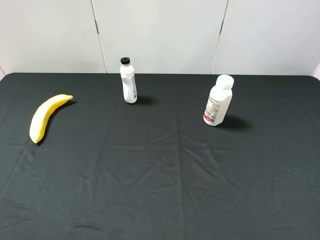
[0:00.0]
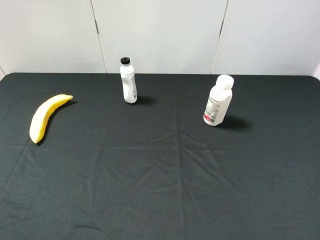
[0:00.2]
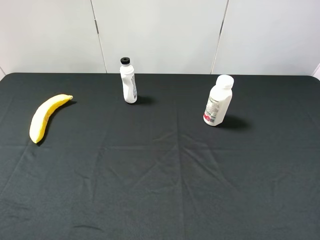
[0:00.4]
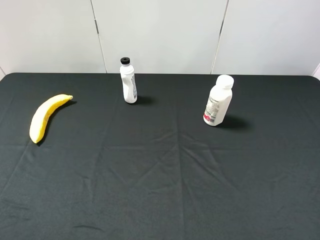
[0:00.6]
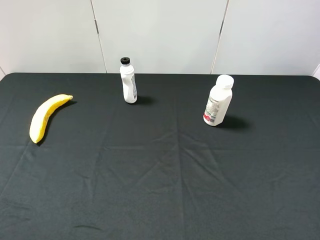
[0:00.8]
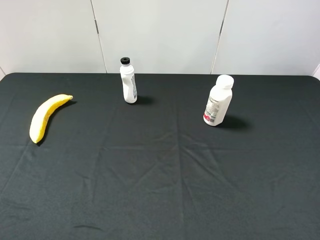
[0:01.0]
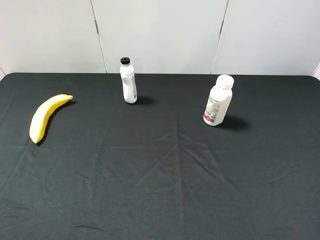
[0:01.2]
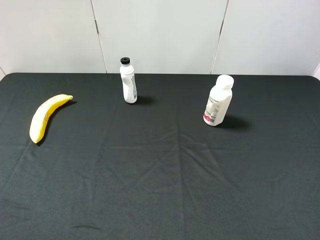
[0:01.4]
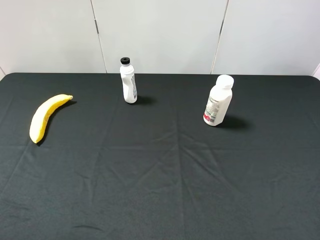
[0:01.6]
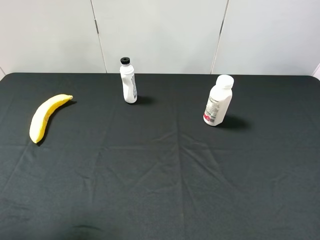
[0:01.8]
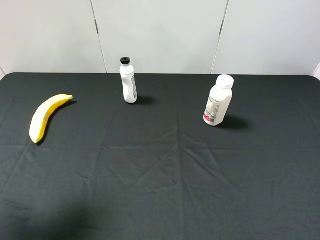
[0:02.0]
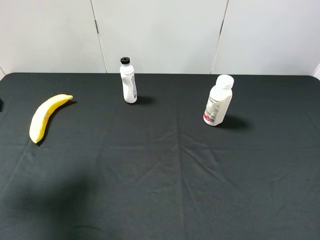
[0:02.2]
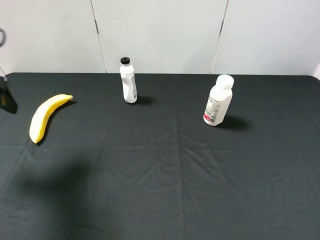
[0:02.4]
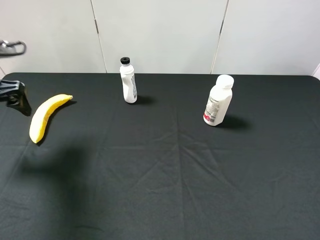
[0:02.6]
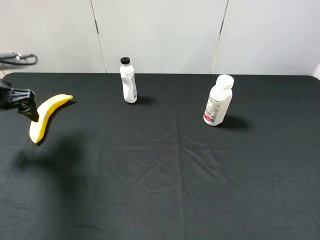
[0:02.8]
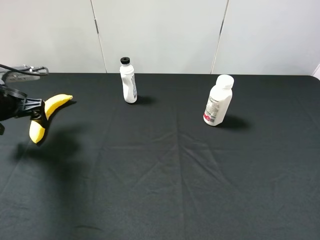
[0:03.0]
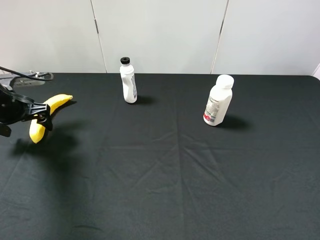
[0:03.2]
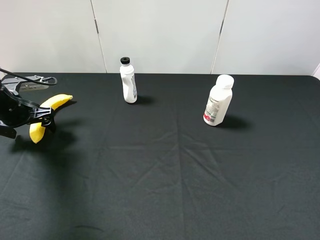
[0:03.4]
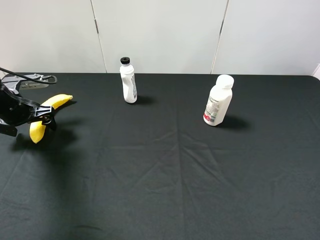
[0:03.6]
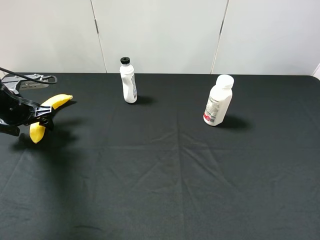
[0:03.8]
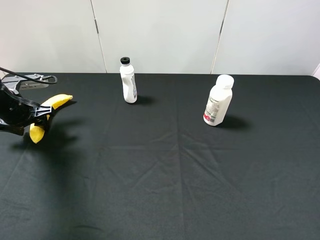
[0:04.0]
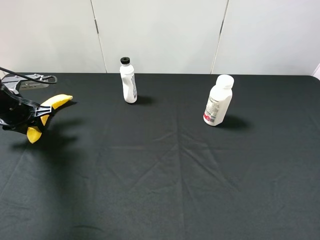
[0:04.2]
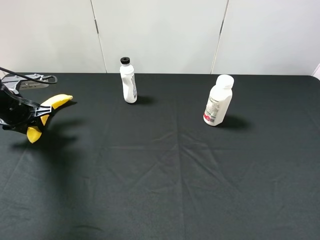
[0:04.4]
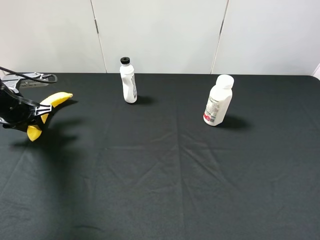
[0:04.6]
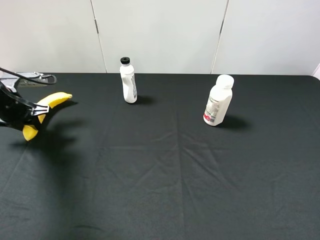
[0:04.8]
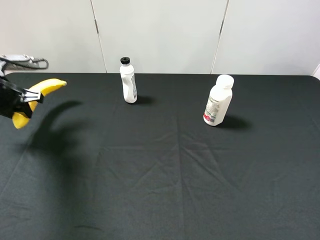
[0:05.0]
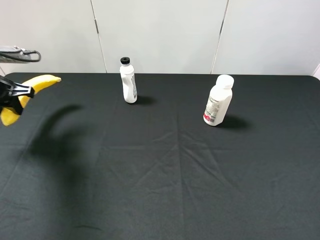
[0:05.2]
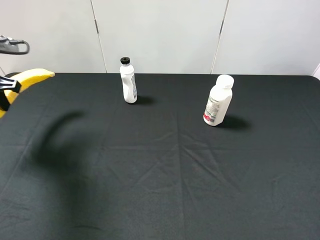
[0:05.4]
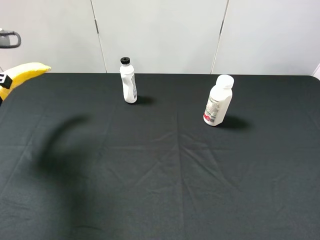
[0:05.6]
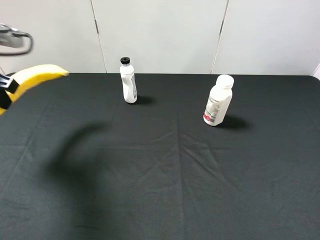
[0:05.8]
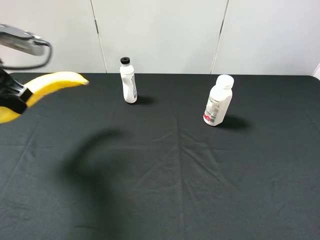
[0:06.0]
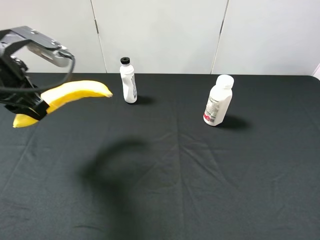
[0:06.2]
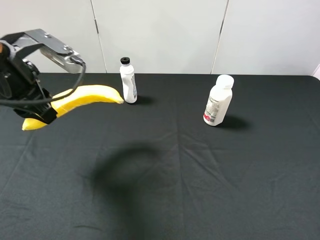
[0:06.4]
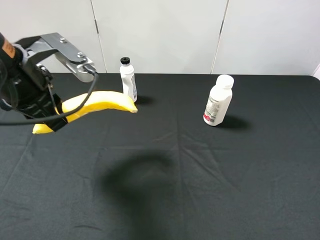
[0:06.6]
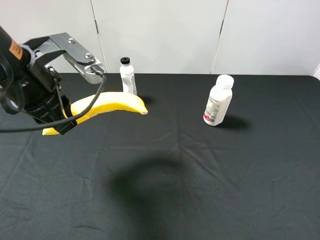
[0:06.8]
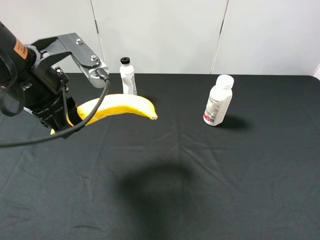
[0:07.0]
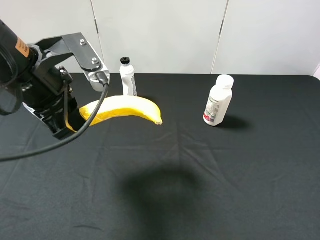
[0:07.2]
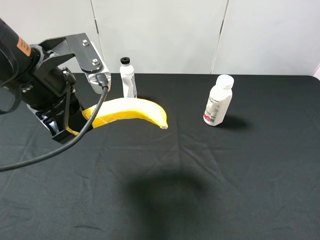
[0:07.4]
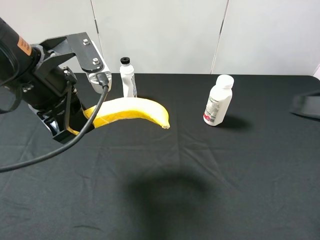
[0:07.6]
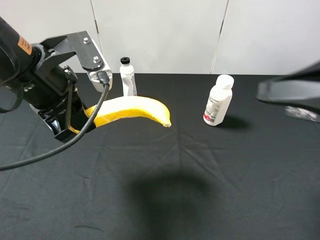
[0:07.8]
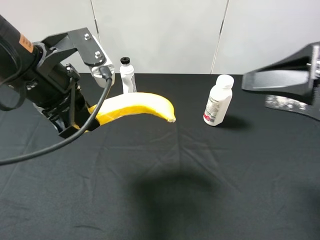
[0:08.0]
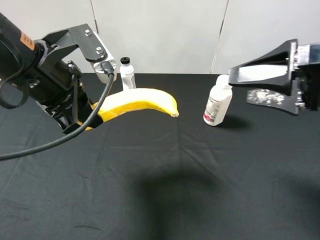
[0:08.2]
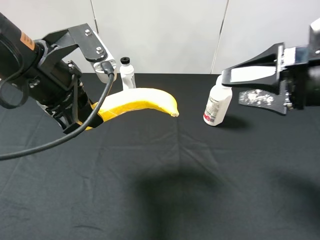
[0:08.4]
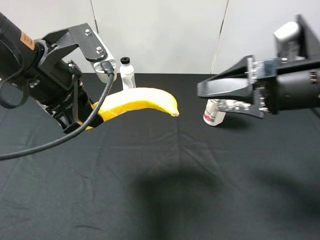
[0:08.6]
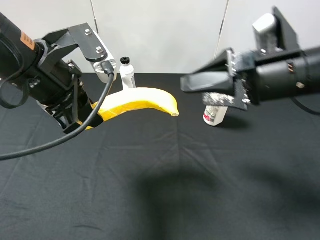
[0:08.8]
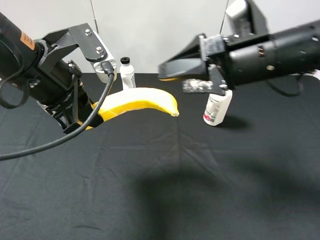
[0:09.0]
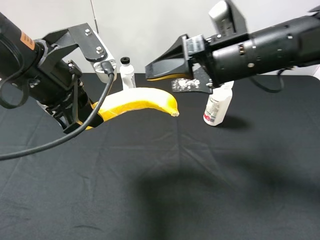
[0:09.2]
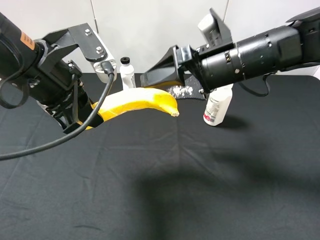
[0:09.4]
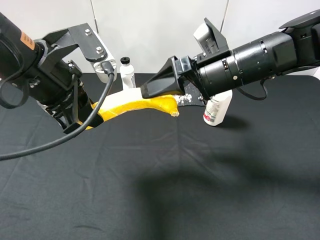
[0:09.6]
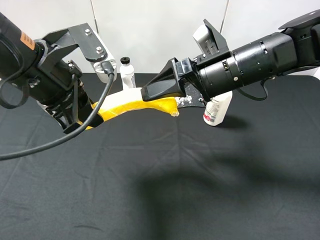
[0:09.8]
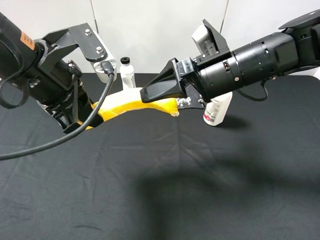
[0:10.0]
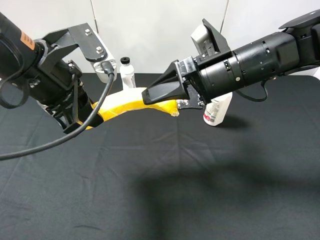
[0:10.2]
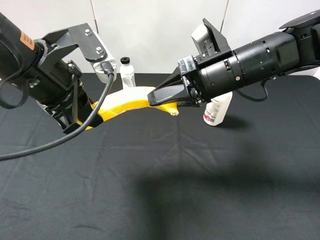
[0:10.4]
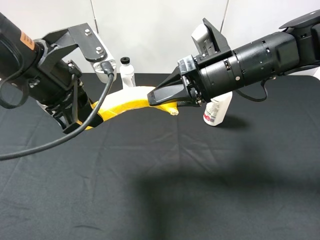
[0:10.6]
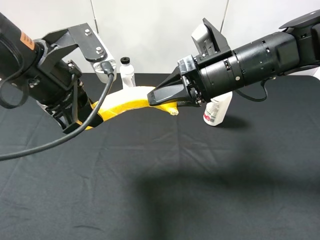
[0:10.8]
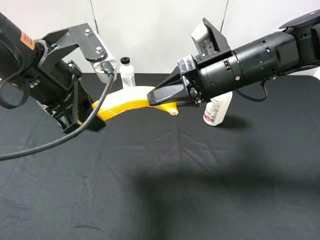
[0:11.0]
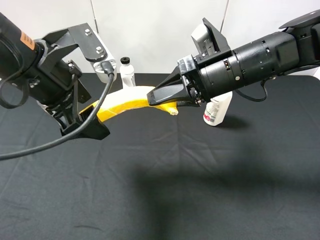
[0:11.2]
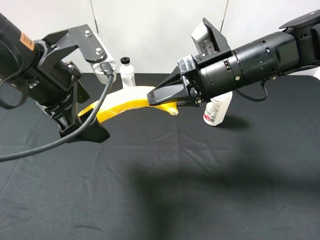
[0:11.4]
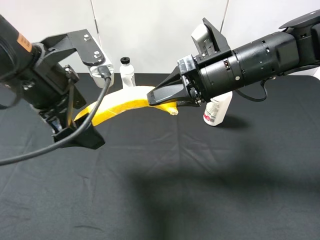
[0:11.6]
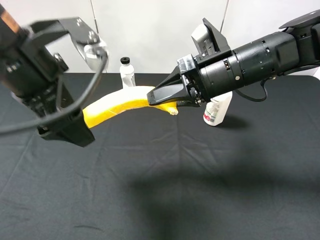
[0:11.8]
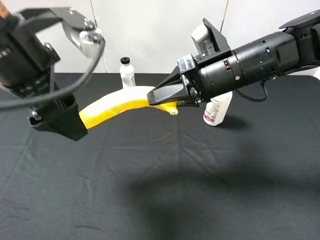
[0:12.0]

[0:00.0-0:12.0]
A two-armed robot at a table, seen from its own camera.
Task of the whole recording: use the left gripper to pick up the item and transfer it from the left gripper to the right gripper.
0:01.6 to 0:03.0: The left gripper is displaced forward and downward by some 30 cm.
0:03.0 to 0:04.4: The left gripper closes up.
0:04.4 to 0:06.0: The left gripper goes roughly 20 cm upward, backward and to the right.
0:06.0 to 0:07.6: The left gripper moves to the right, roughly 10 cm; the right gripper shifts about 10 cm forward.
0:07.6 to 0:09.0: The right gripper shifts about 20 cm forward and to the left.
0:09.0 to 0:10.4: The right gripper closes up.
0:10.4 to 0:12.0: The left gripper opens.

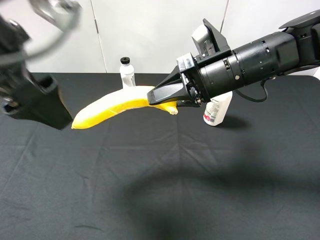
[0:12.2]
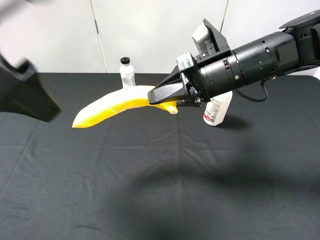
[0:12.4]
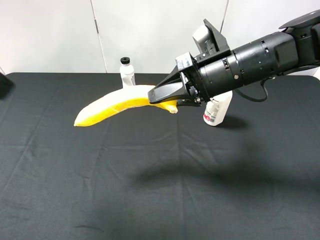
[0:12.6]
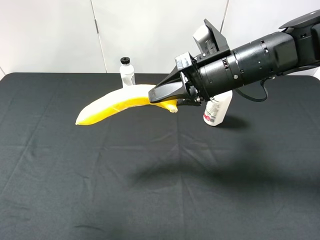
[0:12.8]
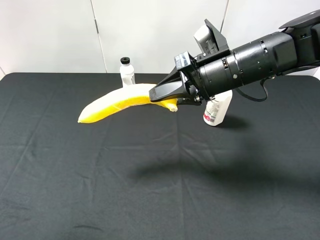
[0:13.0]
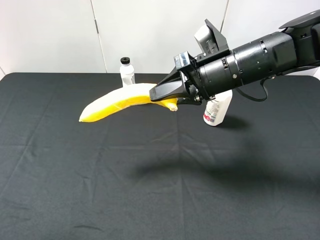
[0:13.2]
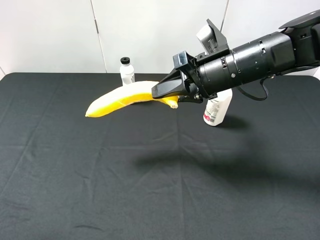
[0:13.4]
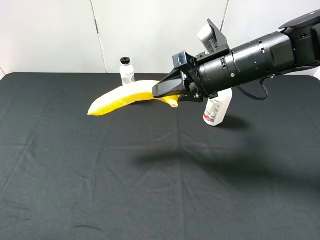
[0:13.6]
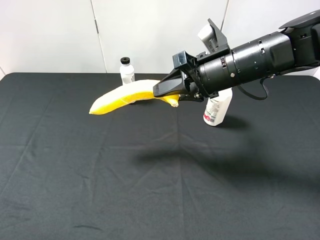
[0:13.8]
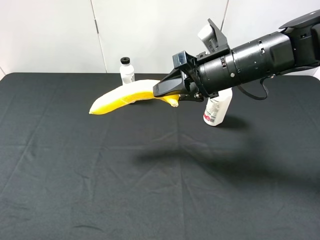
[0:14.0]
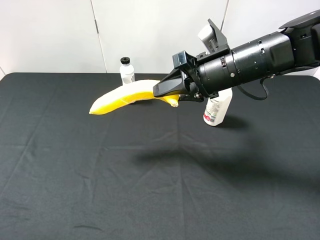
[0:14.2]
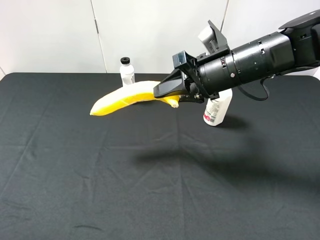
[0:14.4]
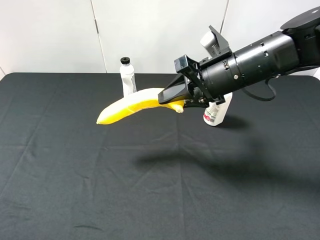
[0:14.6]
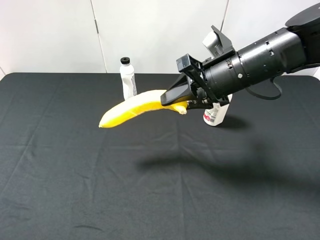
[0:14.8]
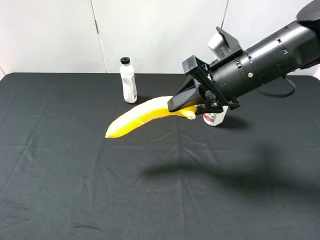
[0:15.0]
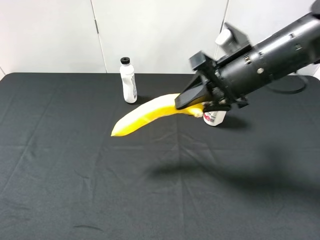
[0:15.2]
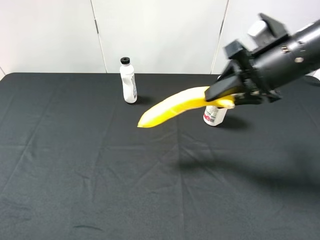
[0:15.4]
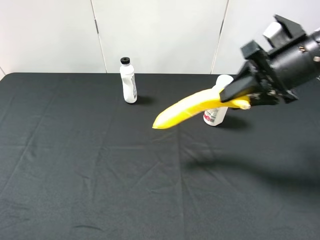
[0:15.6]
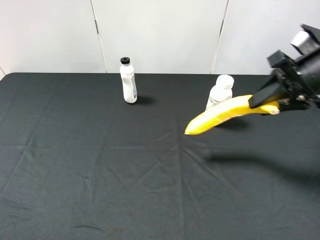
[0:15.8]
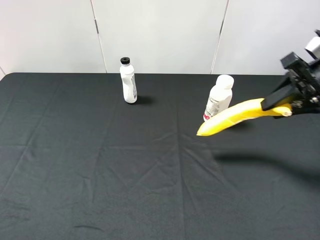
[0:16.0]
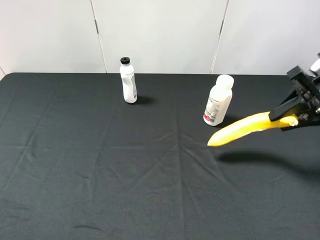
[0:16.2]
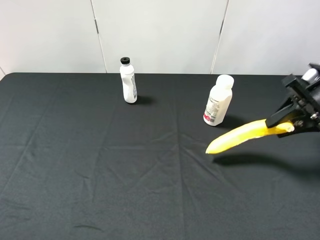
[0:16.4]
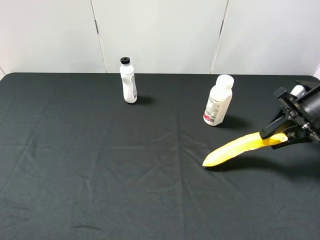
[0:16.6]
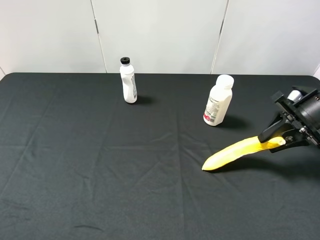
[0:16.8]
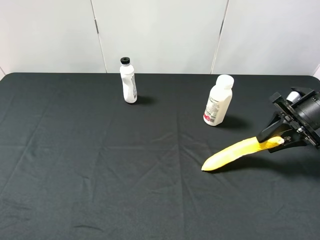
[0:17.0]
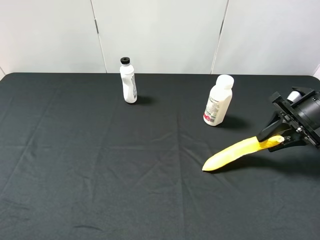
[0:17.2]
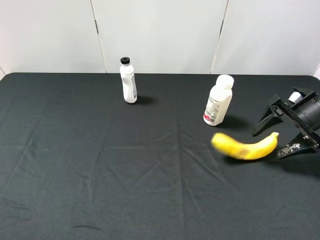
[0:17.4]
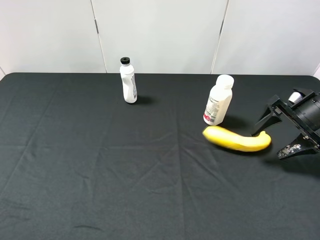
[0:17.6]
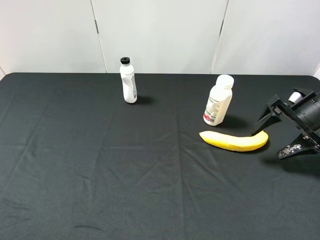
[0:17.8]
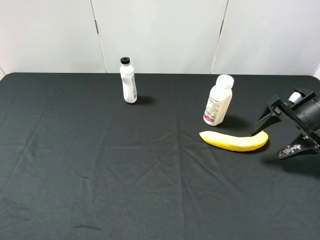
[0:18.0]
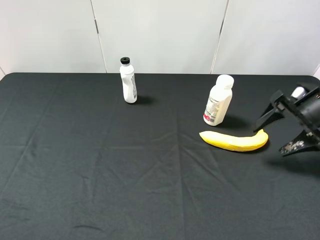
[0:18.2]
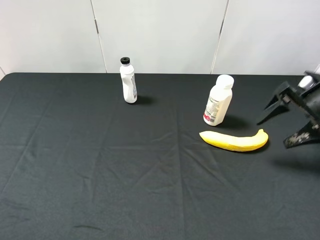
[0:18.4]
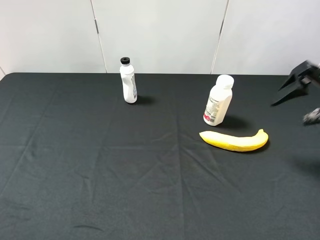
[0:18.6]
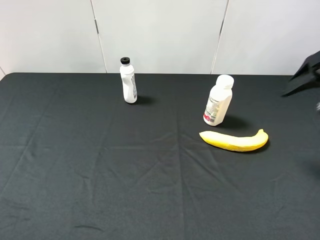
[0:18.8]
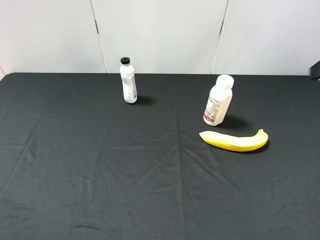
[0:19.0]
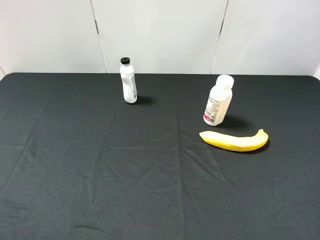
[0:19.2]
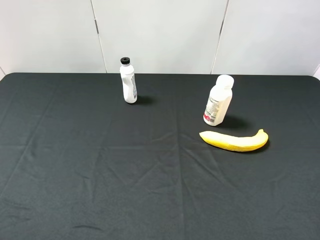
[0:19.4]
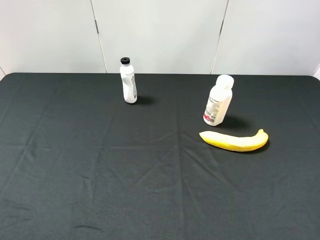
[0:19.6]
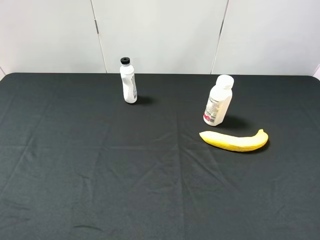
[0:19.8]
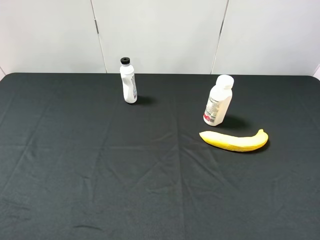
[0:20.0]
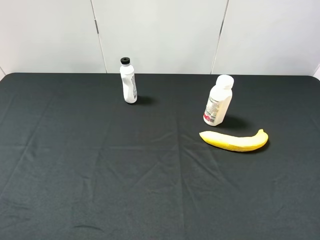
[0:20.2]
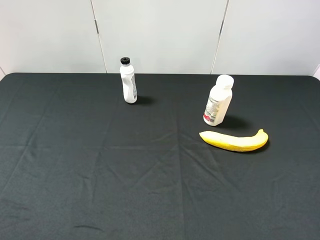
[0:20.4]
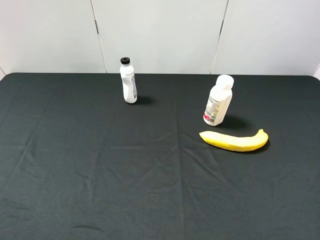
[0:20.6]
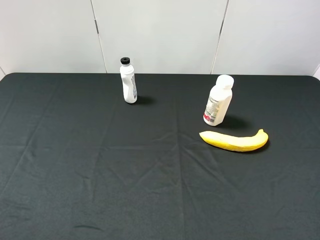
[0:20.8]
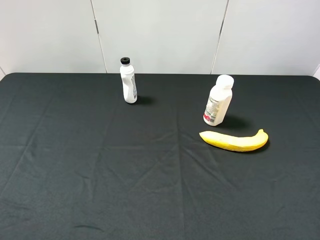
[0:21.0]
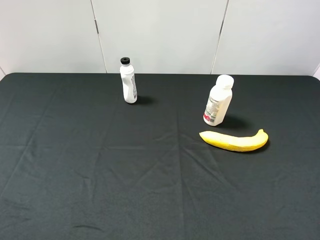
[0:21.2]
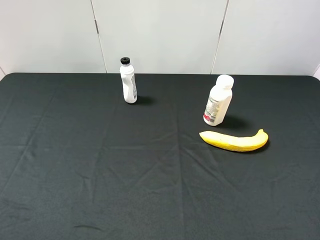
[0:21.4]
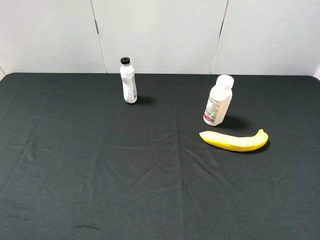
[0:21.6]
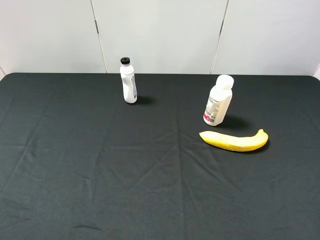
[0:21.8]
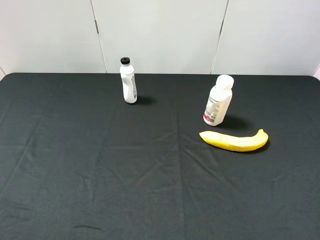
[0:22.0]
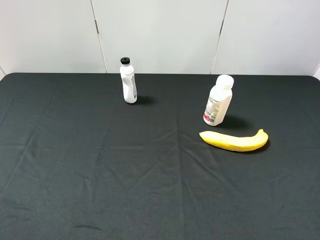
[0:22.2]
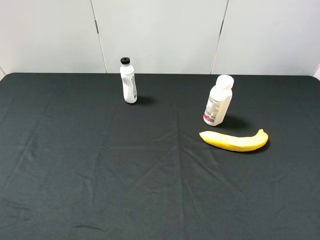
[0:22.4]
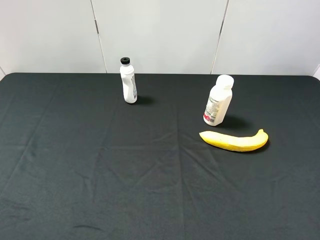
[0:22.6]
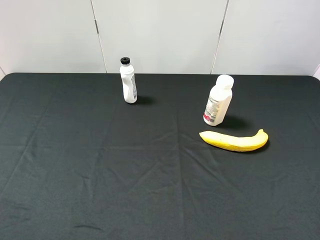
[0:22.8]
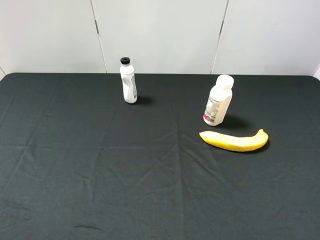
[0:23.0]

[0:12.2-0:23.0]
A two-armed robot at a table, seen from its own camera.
Task of the whole recording: use the left gripper to pick up the item and transfer it from the left gripper to the right gripper.
0:12.2 to 0:13.8: The left gripper moves backward and to the left, about 20 cm.
0:13.8 to 0:15.2: The right gripper changes place by roughly 5 cm.
0:15.2 to 0:16.8: The right gripper heads to the right and downward, covering roughly 20 cm.
0:16.8 to 0:18.4: The right gripper opens its fingers.
0:18.4 to 0:20.0: The right gripper shifts about 30 cm backward and upward.
